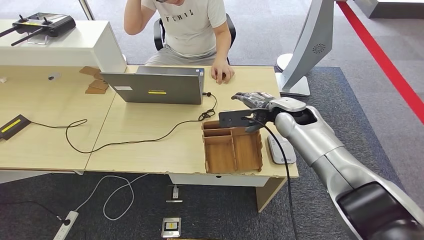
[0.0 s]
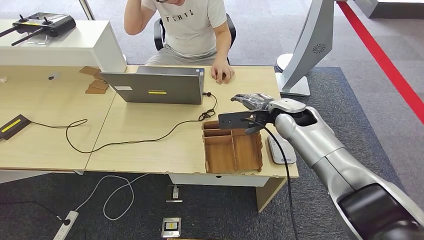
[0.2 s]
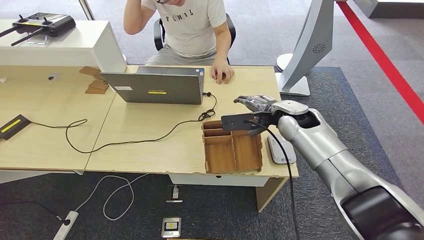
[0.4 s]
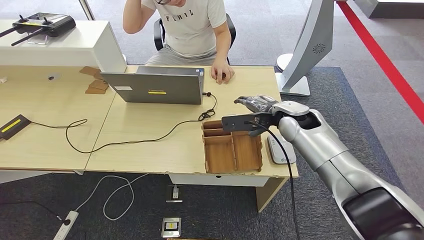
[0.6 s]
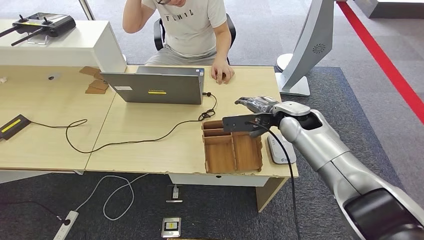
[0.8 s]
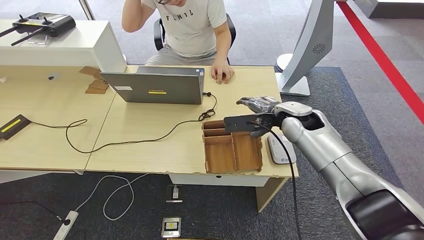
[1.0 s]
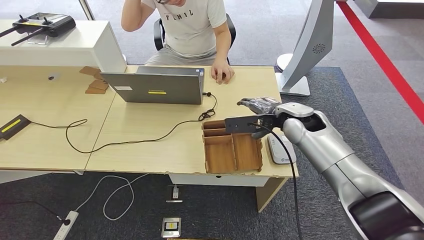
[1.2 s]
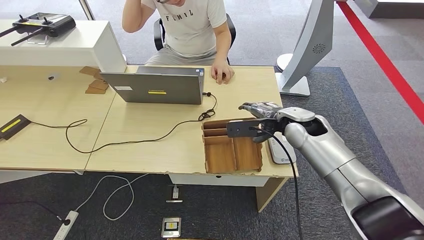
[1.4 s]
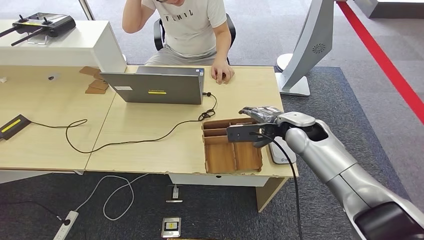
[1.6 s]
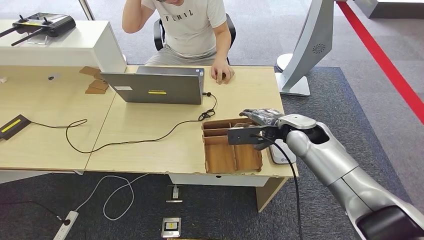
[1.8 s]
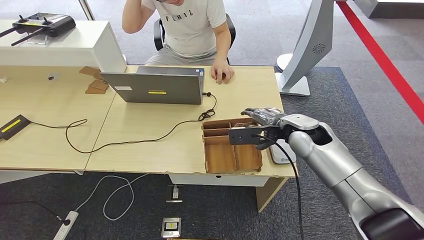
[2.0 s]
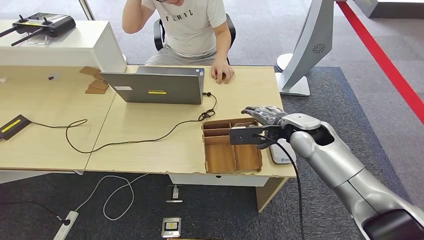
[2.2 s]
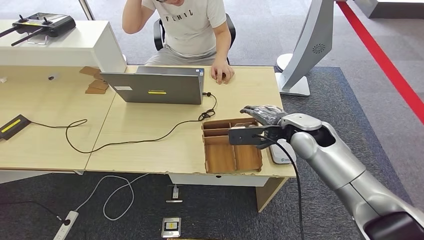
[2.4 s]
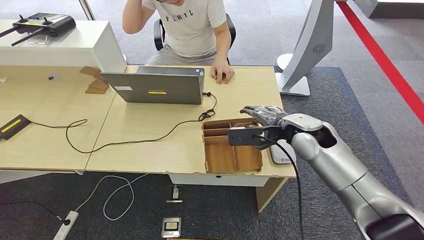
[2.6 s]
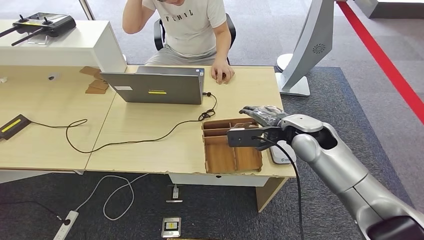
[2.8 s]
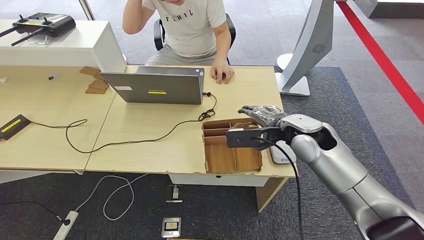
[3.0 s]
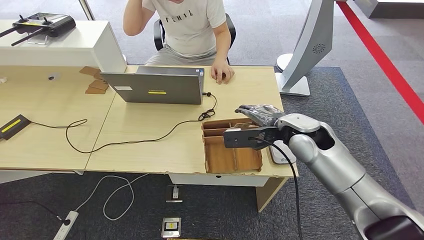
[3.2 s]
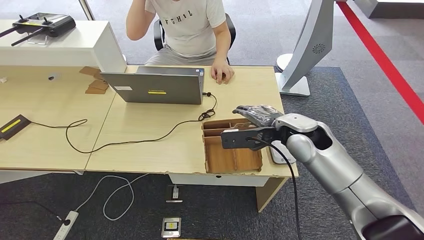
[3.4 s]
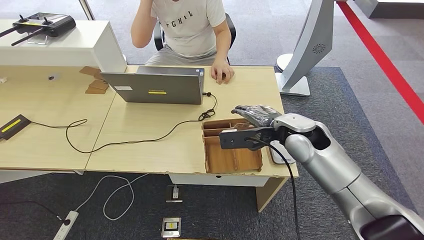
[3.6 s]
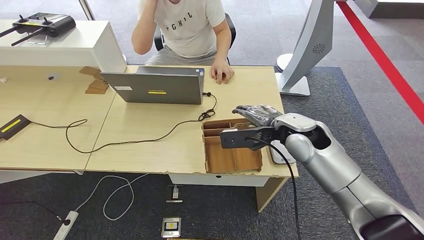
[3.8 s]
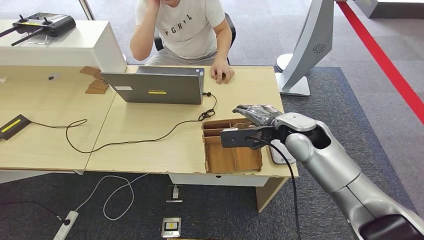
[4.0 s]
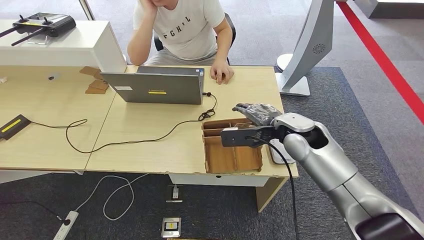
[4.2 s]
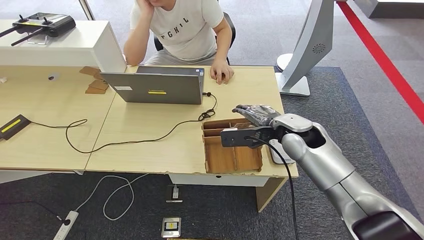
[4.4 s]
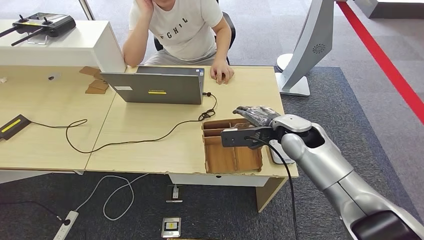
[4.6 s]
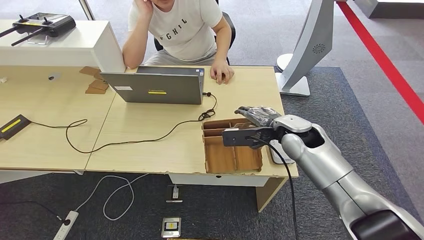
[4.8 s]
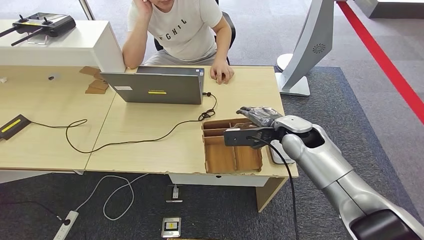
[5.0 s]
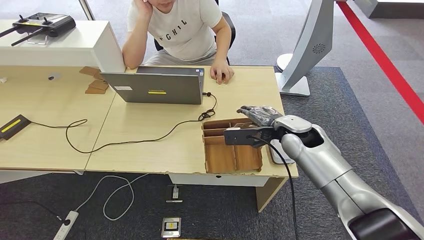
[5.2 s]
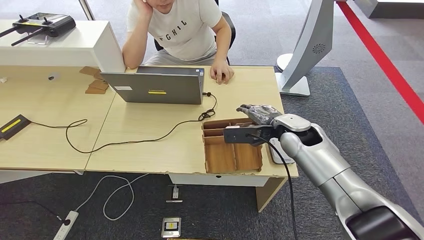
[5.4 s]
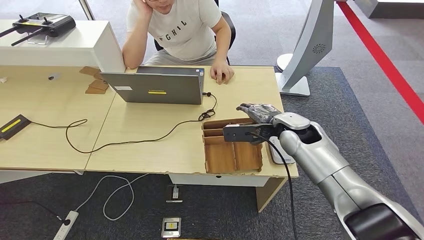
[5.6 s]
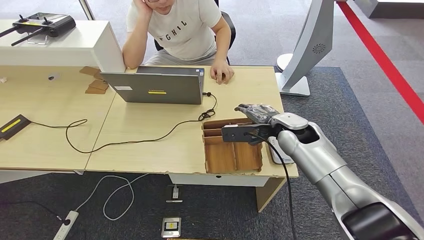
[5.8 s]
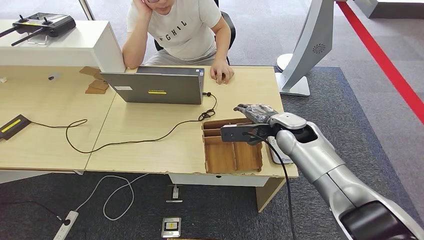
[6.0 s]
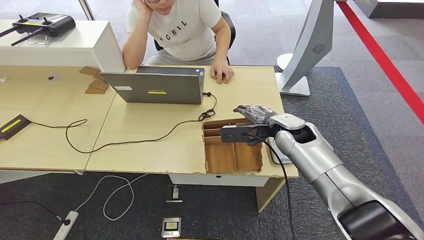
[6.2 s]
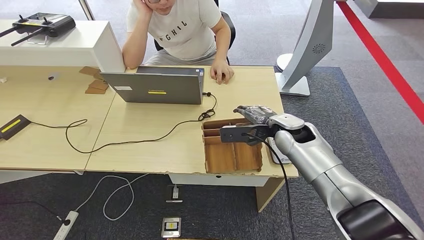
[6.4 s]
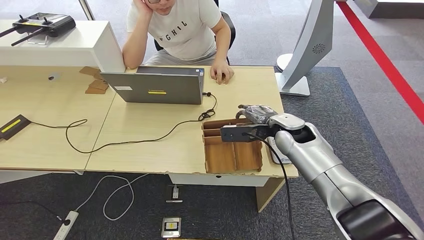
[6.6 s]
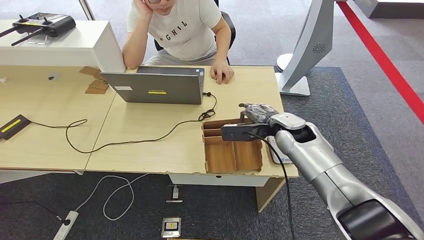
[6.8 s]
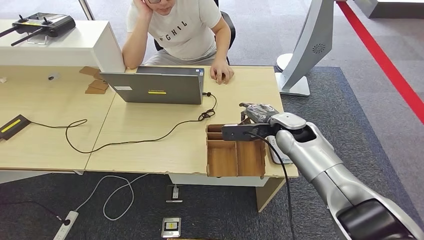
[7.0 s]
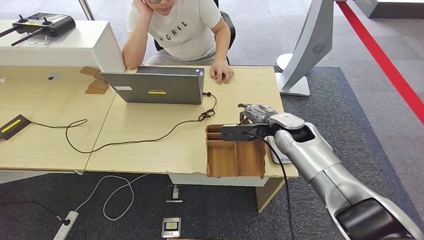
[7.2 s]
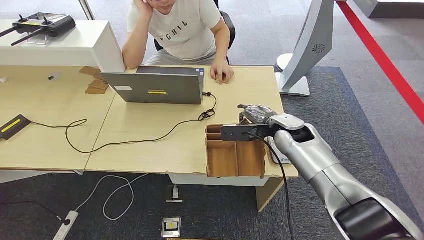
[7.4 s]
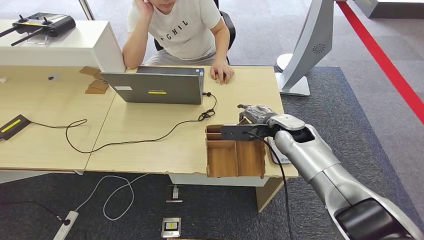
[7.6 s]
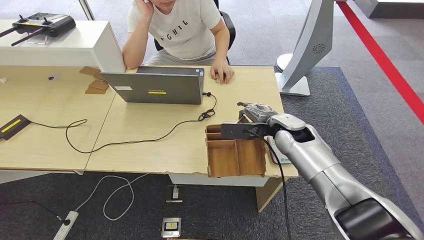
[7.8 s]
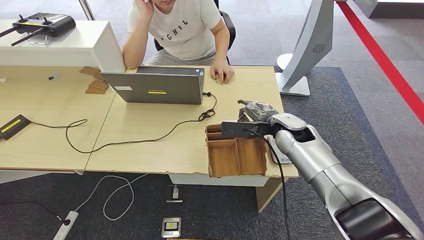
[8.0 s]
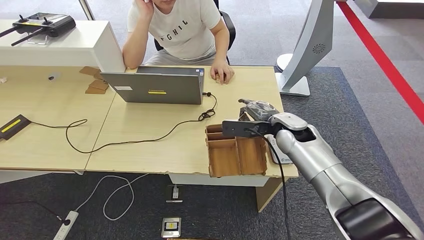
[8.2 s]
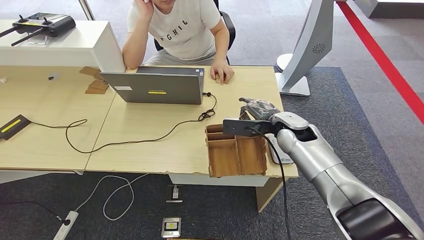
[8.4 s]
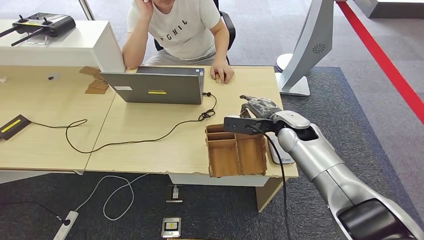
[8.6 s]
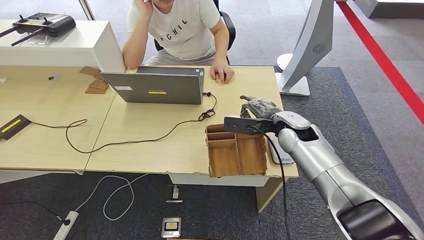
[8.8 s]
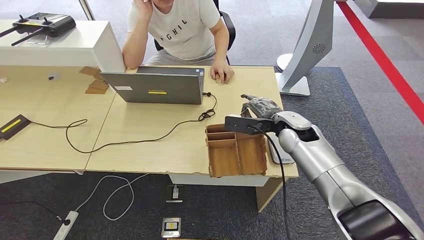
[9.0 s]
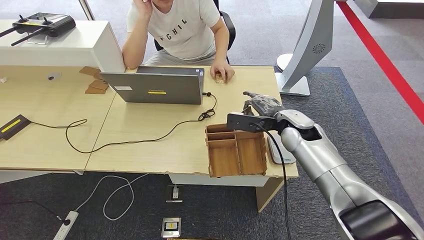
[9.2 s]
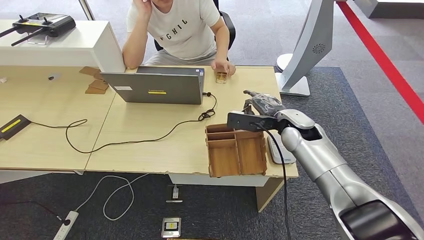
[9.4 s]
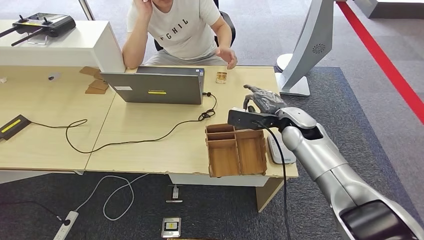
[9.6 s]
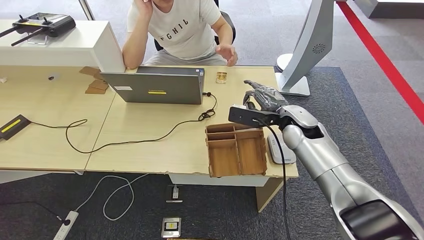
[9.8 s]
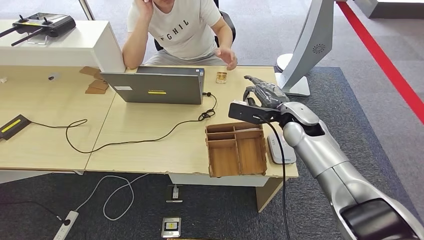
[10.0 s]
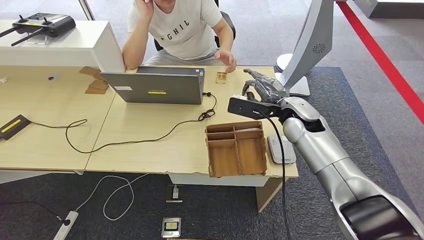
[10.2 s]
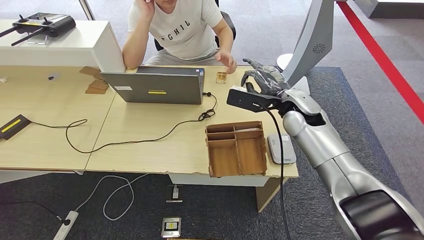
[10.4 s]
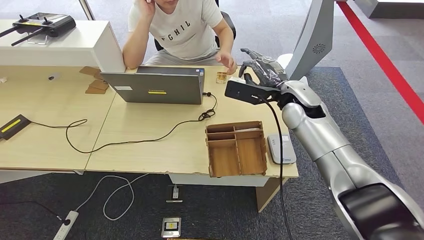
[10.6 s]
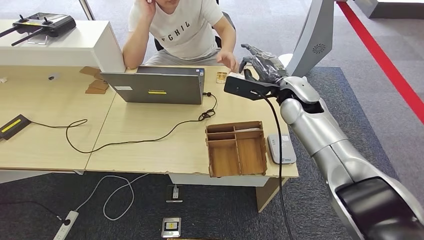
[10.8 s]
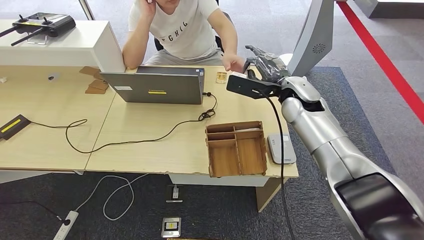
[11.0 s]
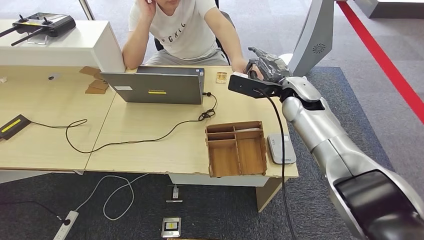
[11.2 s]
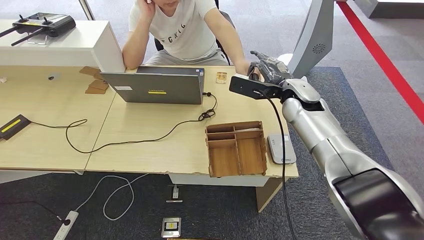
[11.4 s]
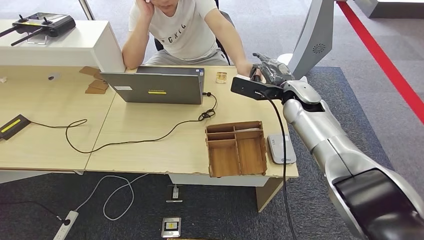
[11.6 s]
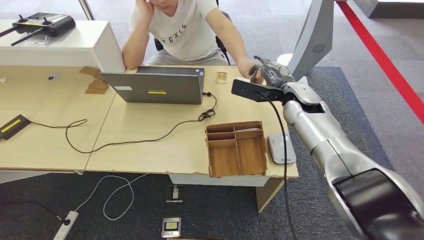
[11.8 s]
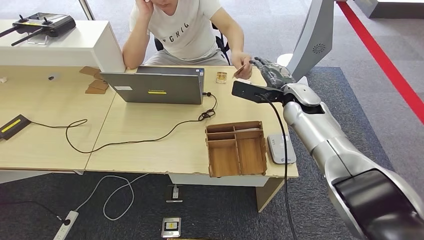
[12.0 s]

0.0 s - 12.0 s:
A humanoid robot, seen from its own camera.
0.0 s - 1.6 s: The hands stay close to where they were, moving slightly.
1.6 s - 6.0 s: The hands stay close to where they were, moving slightly.
6.0 s - 7.6 s: The two hands keep their place.
7.6 s - 9.0 s: The hands make only small movements.
9.0 s - 10.4 s: The right hand travels upward by approximately 5 cm.
10.4 s - 12.0 s: There are only small adjustments of the hands.

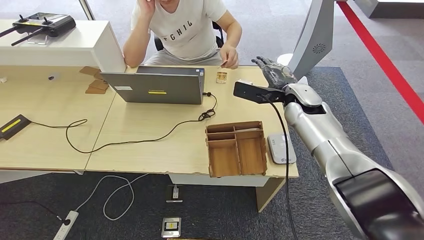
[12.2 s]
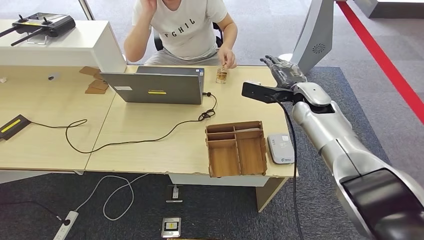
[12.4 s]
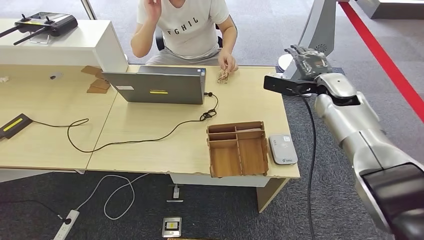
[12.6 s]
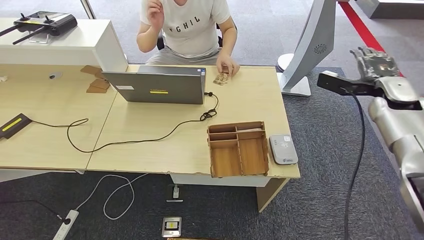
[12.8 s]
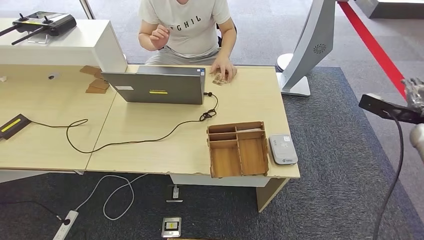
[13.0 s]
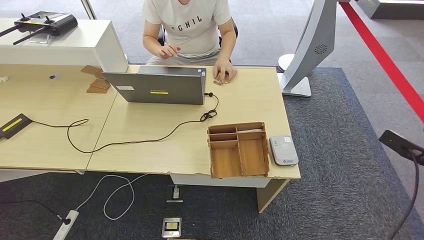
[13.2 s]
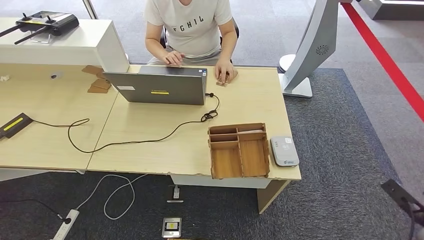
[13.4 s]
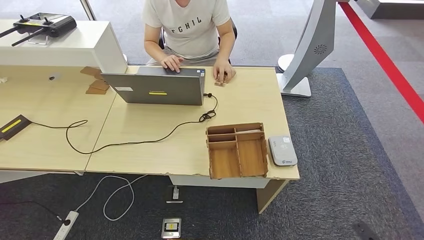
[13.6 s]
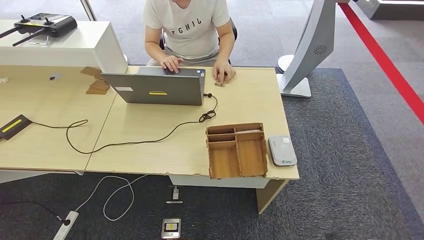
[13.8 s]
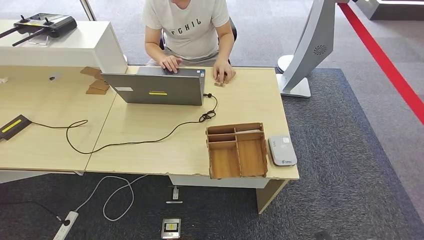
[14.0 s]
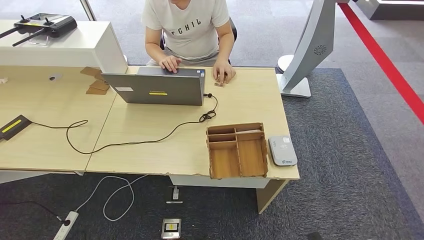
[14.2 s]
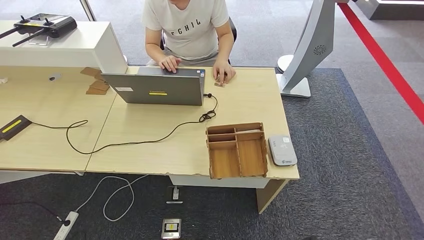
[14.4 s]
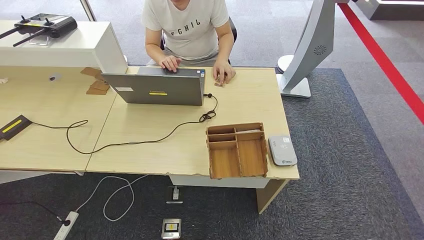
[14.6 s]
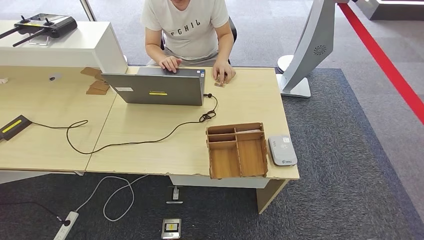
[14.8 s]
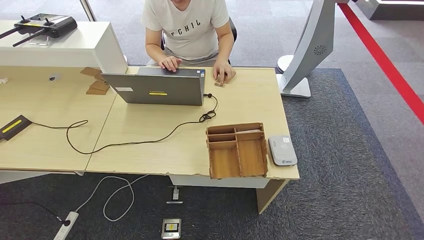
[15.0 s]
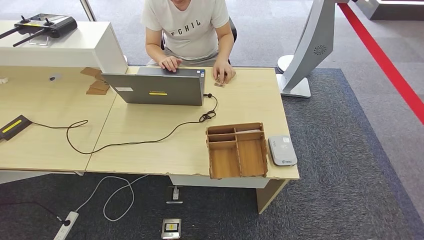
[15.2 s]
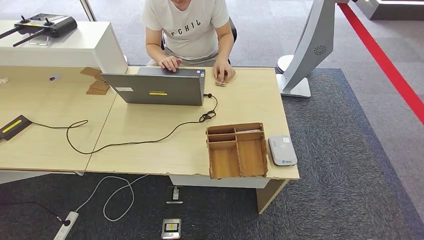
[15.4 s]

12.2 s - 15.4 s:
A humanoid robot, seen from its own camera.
Step, 12.2 s - 15.4 s: Hand the room key to the person.
12.2 s - 13.8 s: The right hand travels backward, downward and to the right by roughly 50 cm.

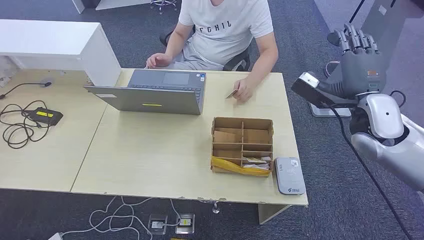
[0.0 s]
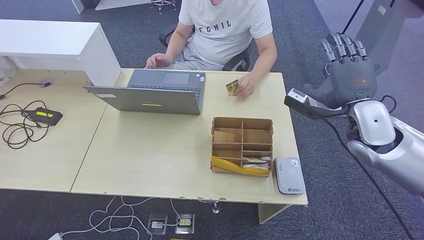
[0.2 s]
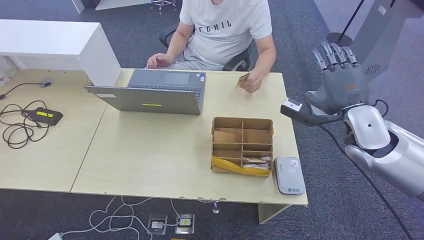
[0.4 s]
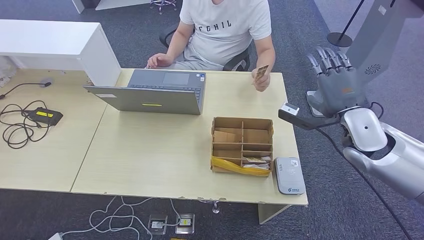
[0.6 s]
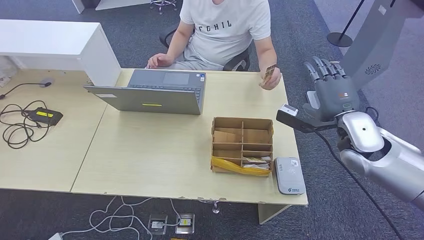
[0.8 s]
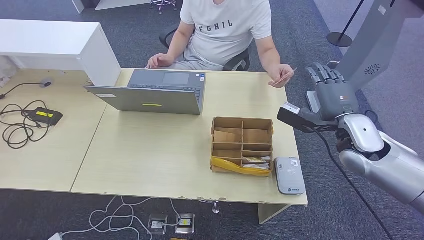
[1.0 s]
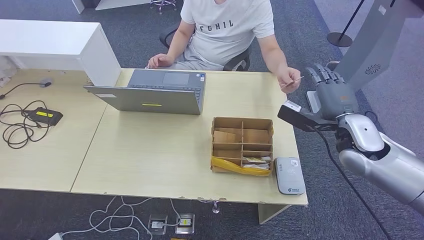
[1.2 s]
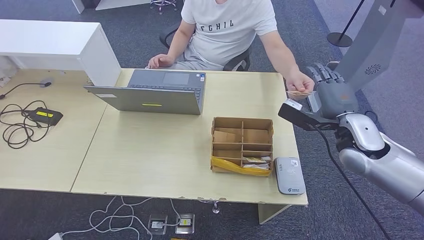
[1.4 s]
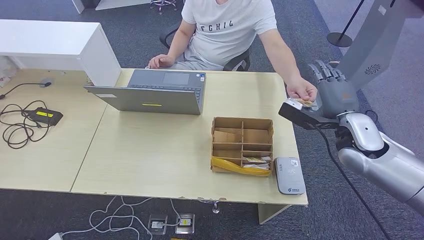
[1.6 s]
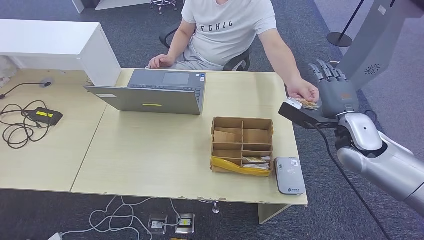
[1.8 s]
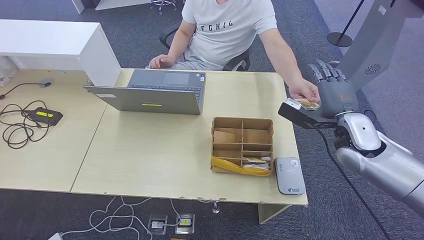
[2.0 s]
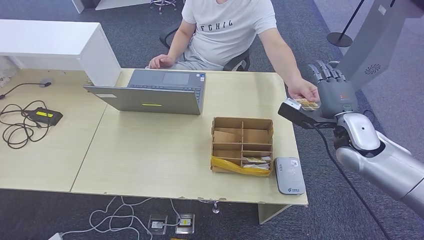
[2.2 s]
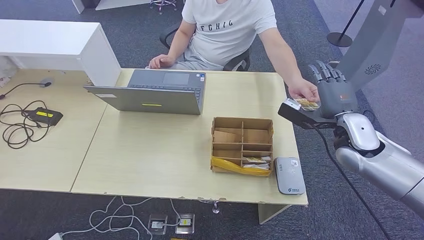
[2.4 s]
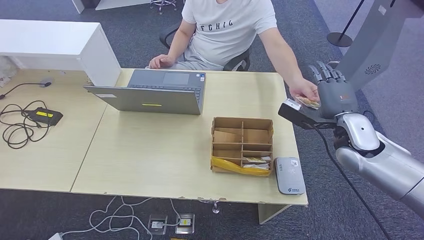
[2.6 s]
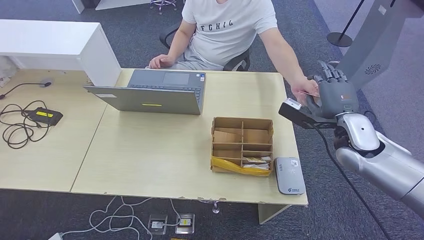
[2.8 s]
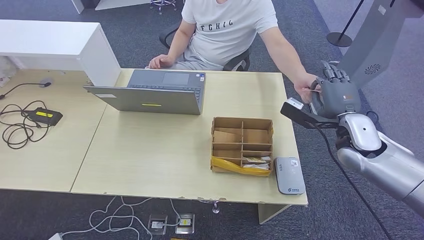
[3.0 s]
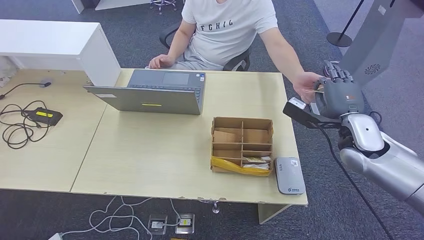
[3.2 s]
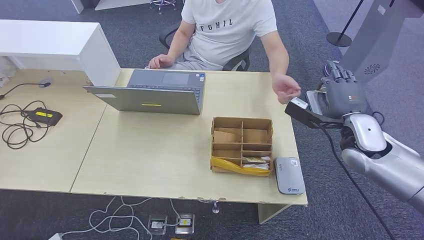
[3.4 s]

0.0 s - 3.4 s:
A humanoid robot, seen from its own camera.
1.6 s - 3.4 s: The hands move only a little.
